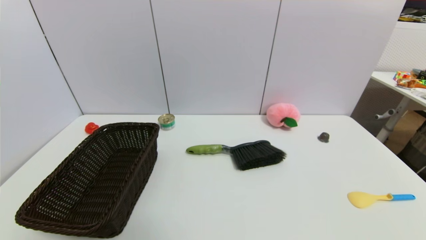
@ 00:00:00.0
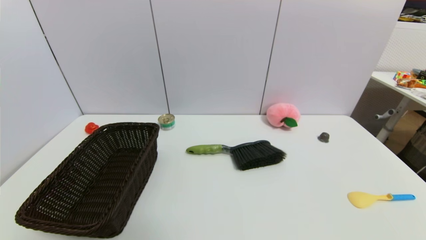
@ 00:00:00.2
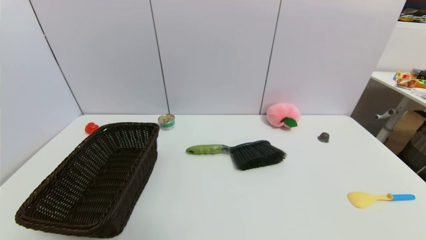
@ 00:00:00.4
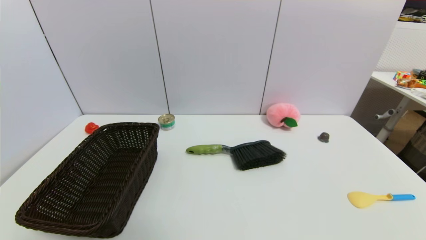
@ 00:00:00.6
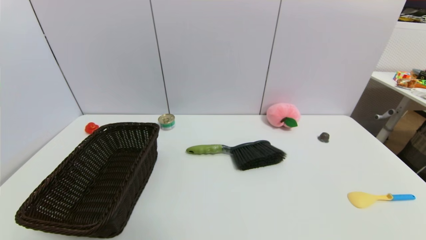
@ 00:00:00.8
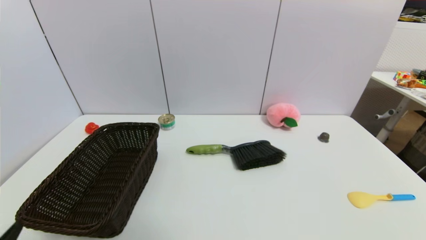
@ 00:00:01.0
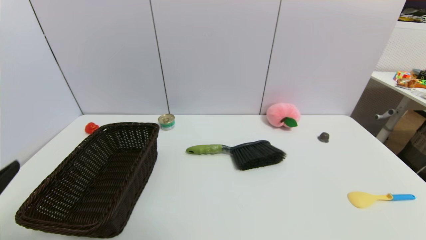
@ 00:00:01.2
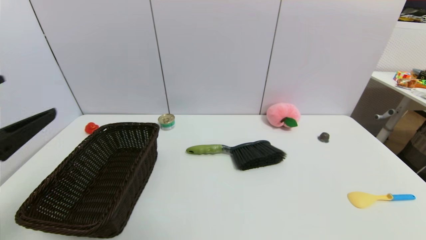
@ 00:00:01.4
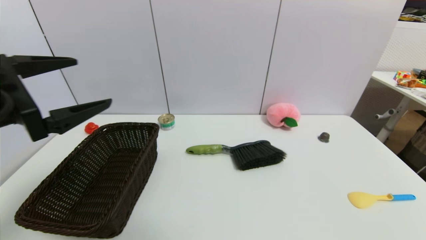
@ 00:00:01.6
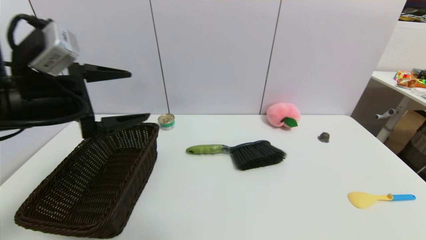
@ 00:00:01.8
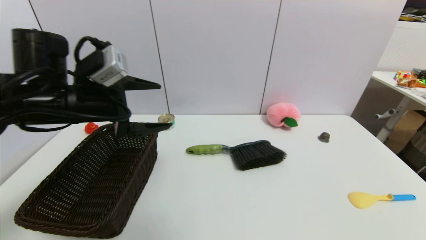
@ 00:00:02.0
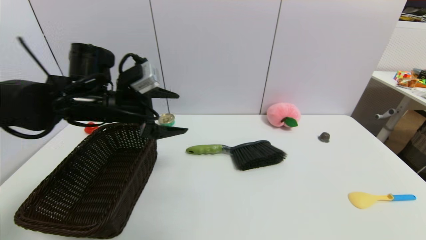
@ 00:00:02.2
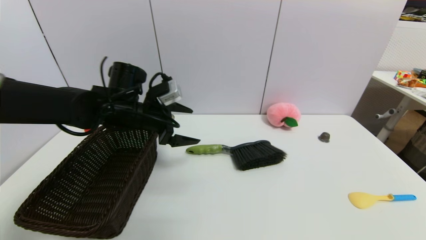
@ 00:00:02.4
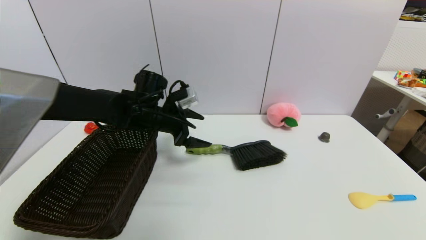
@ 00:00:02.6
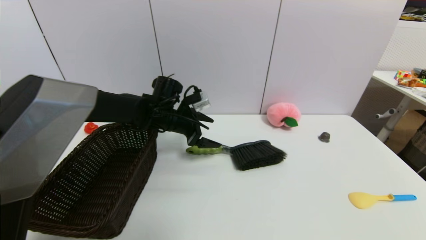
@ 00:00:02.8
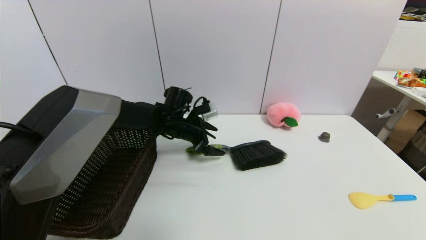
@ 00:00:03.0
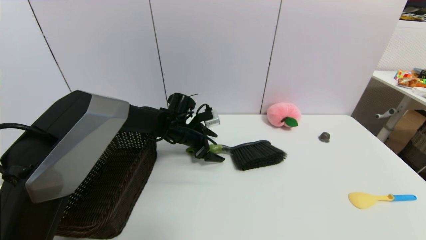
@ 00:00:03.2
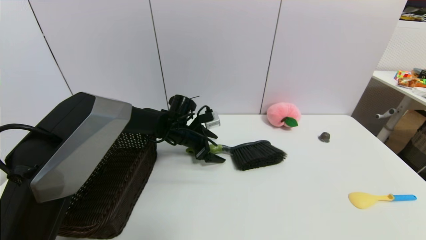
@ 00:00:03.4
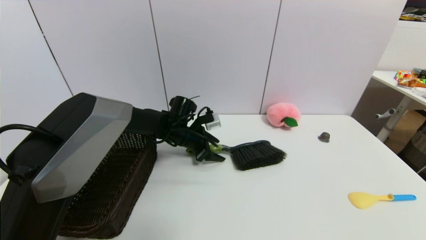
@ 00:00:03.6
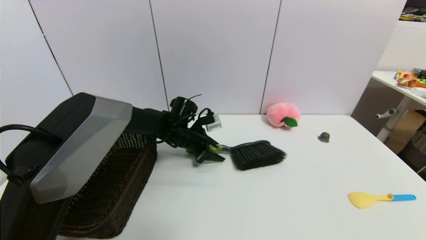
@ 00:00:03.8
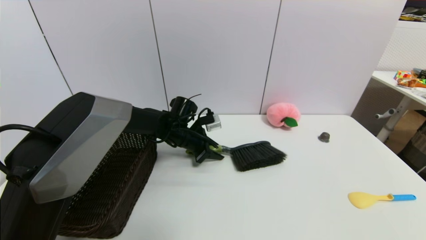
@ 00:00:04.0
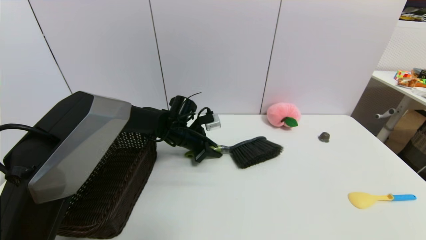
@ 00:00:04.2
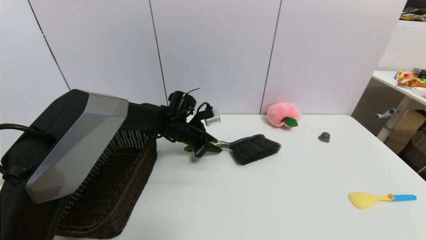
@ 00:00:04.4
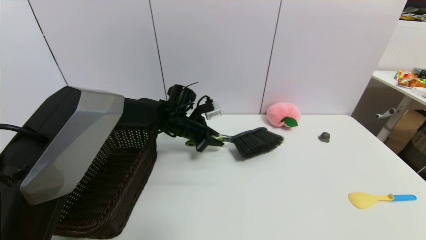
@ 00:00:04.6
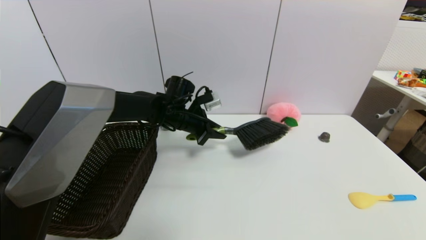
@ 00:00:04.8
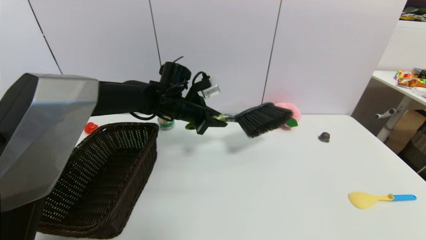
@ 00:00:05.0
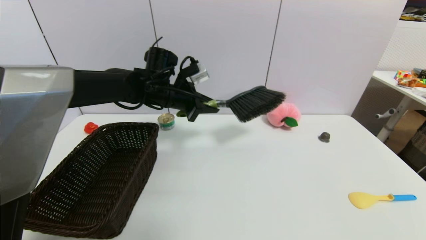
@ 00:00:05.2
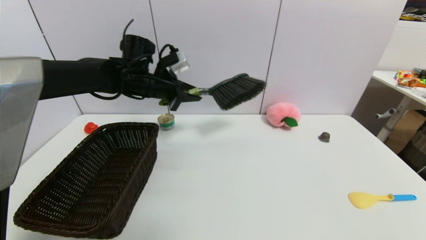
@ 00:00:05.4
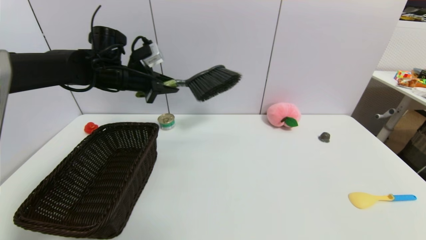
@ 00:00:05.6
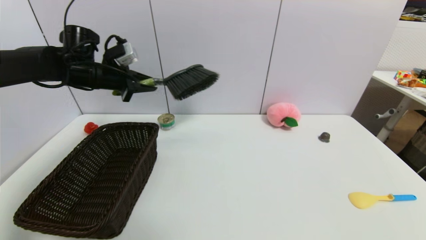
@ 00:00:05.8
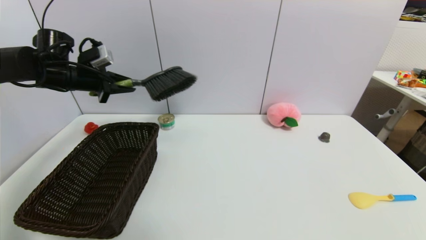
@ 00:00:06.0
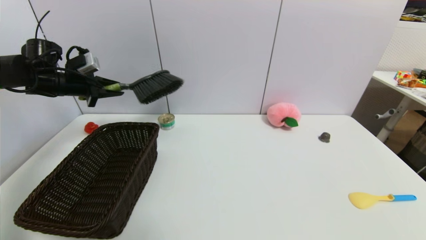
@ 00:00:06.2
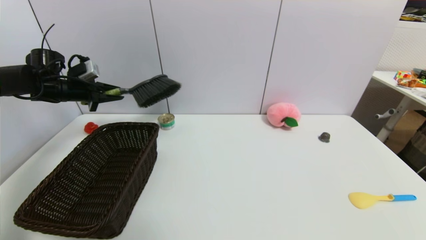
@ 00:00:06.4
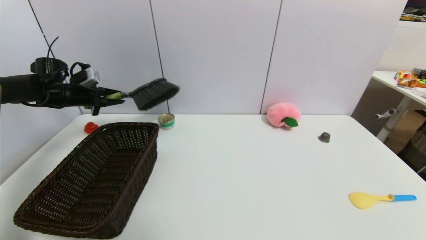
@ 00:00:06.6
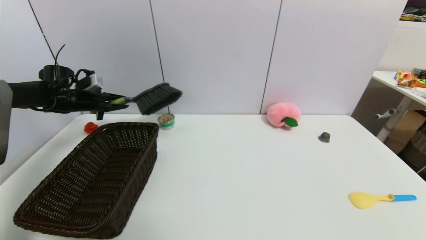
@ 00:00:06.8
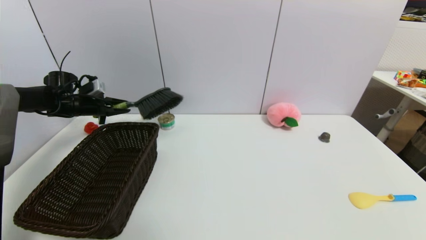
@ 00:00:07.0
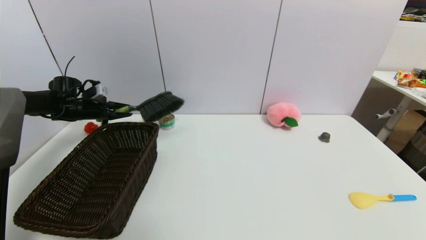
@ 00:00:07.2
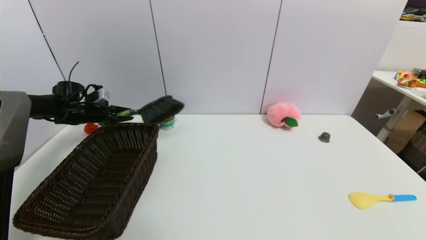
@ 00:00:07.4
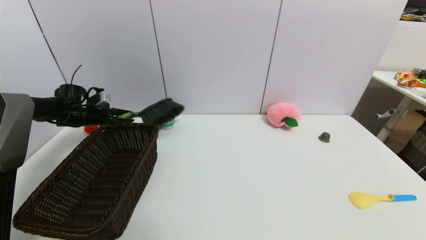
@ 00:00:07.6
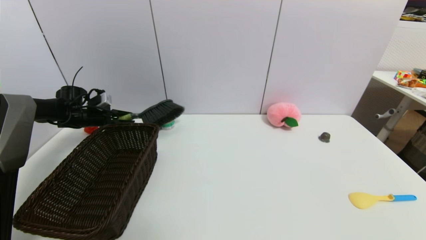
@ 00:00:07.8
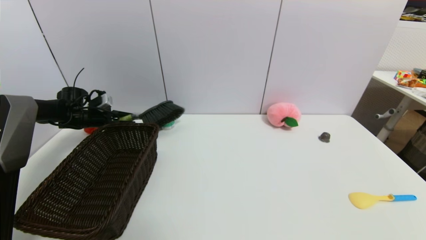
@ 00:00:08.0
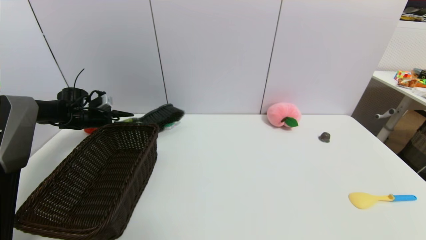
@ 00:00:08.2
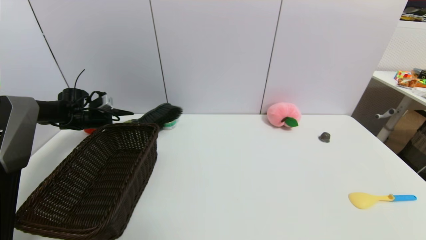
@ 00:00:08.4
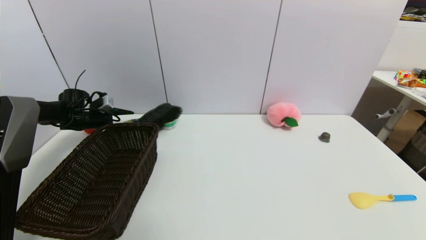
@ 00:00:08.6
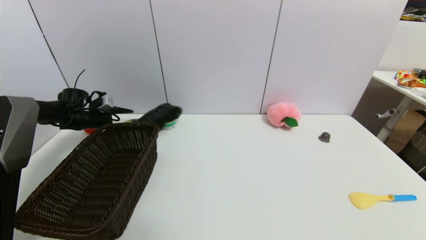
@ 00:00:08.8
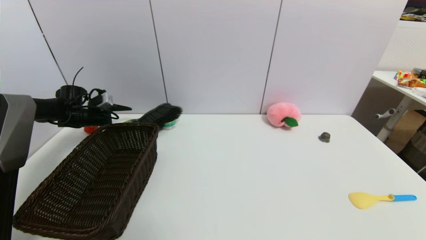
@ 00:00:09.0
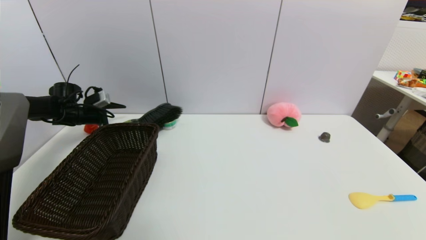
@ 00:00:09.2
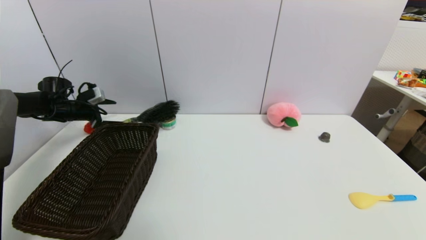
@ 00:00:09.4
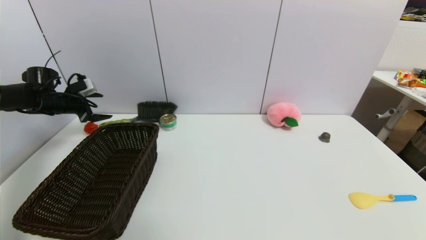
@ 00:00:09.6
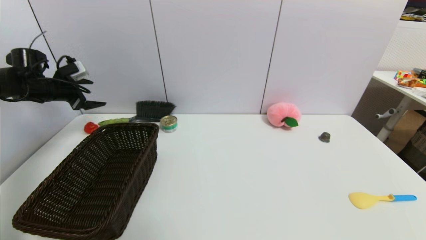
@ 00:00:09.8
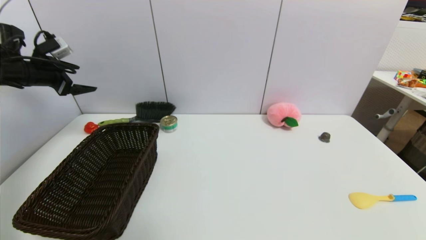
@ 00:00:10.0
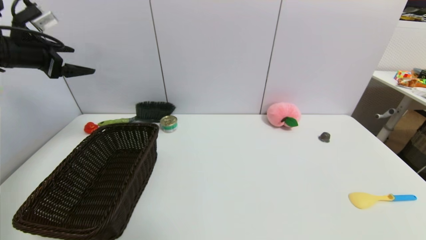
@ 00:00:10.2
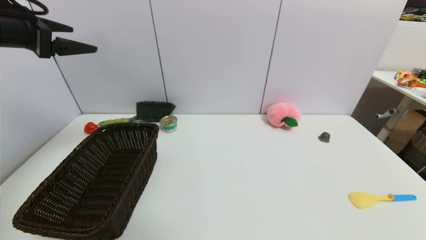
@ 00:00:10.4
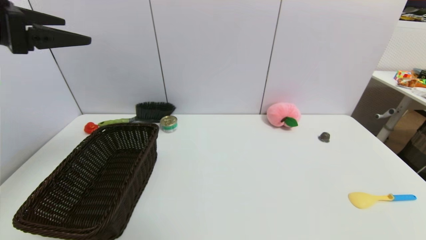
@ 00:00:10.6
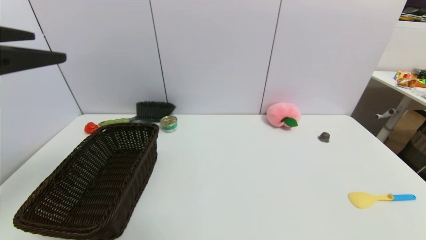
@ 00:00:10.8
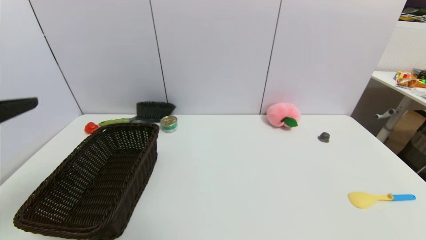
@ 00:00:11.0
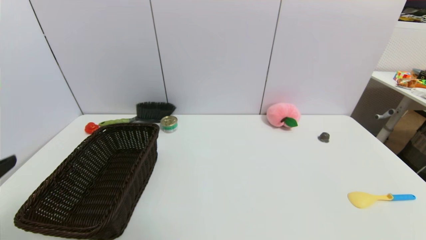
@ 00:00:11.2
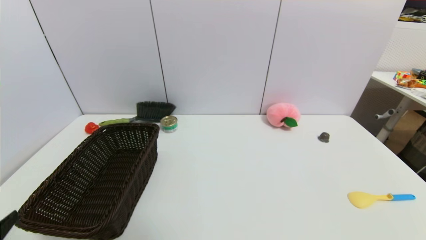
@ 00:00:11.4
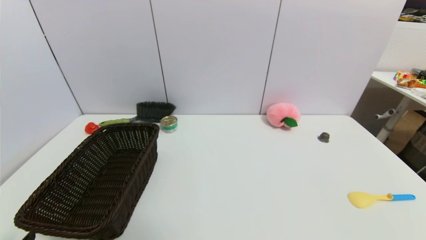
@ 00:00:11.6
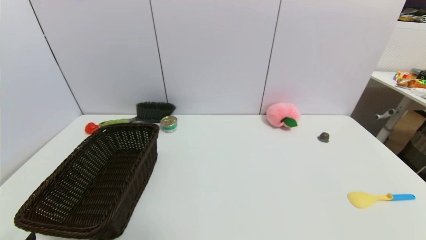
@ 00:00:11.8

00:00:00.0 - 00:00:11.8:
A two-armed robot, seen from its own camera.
Task of the whole recording: put the brush in the designated position.
Step, 00:00:01.0 - 00:00:04.6: Grasp the brush with left gripper.
Step, 00:00:04.8 - 00:00:08.8: Place the brush on the table with left gripper.
00:00:00.0 - 00:00:01.4: The left gripper is displaced upward and forward by some 25 cm.
00:00:01.4 - 00:00:03.0: The left gripper is displaced forward, to the right and downward by some 40 cm.
00:00:03.0 - 00:00:04.4: The left gripper closes its fingers.
00:00:04.4 - 00:00:06.0: The left gripper moves to the left and upward, roughly 30 cm.
00:00:06.0 - 00:00:07.4: The left gripper heads downward, to the left and forward, covering about 15 cm.
00:00:07.4 - 00:00:08.8: The left gripper opens its fingers.
00:00:08.8 - 00:00:10.4: The left gripper is displaced upward and backward by about 35 cm.
00:00:10.4 - 00:00:11.8: The left gripper heads backward and downward, covering approximately 40 cm.

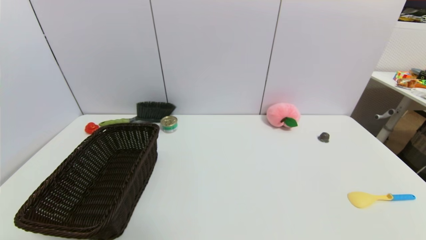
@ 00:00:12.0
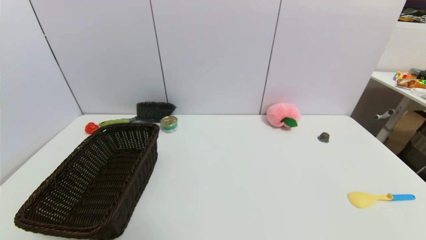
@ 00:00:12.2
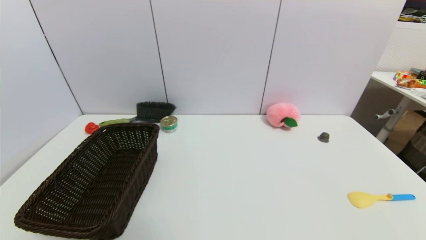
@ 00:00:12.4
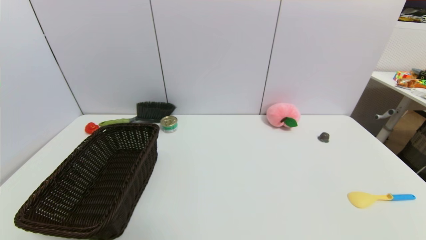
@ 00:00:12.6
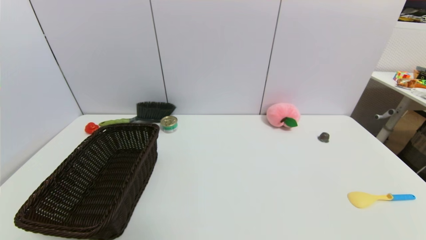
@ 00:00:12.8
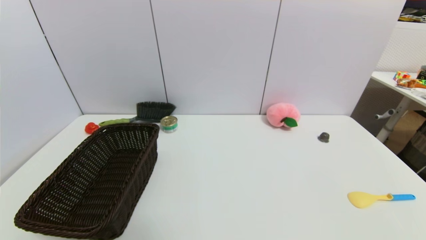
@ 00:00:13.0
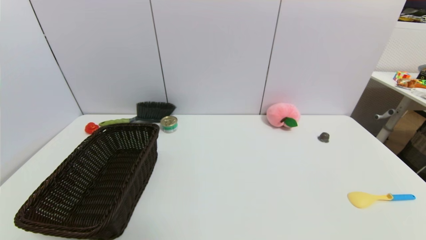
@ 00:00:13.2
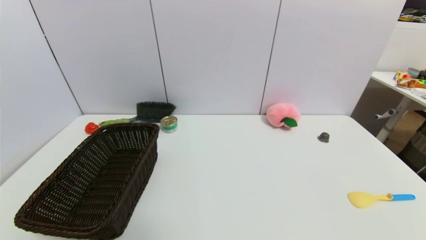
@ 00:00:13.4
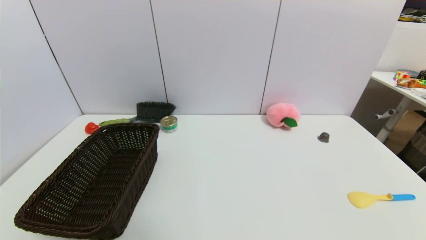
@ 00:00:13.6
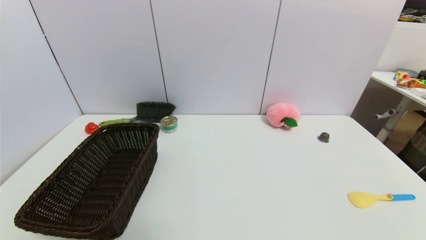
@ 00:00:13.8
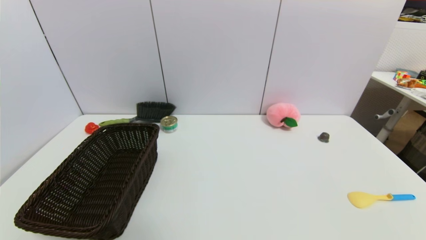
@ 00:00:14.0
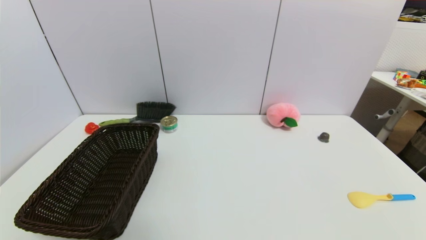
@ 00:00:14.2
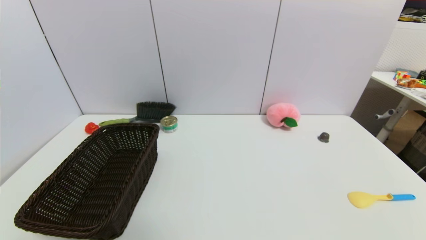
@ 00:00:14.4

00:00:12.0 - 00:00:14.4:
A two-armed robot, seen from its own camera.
Task of the whole recording: put the brush in the designated position.
00:00:13.2 - 00:00:14.4: The two grippers keep their place.
